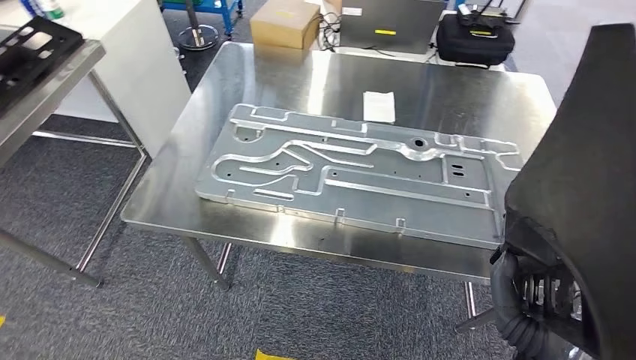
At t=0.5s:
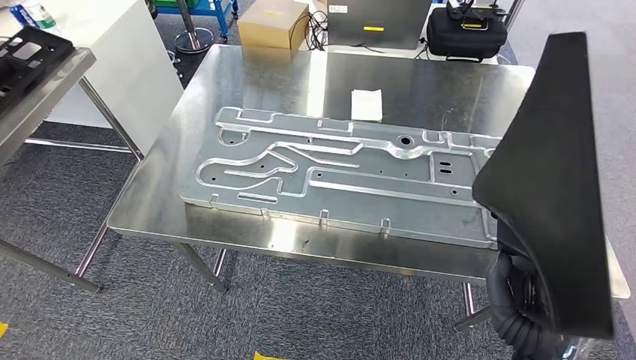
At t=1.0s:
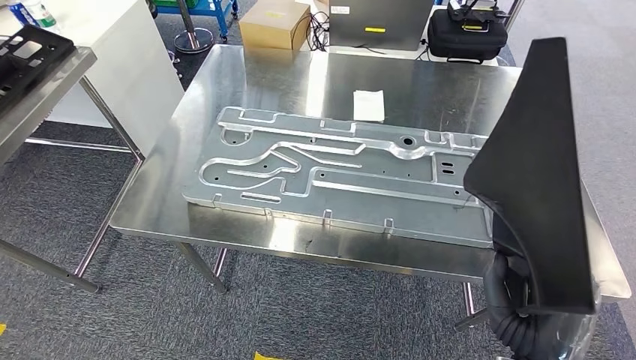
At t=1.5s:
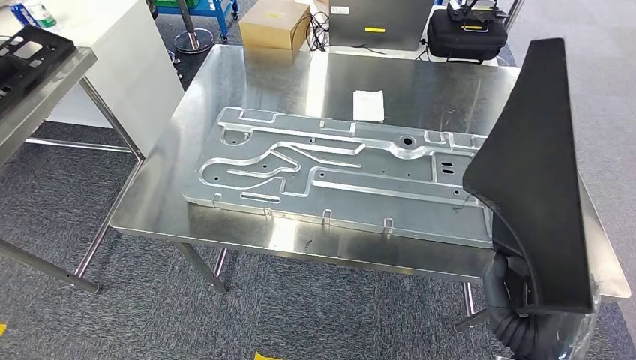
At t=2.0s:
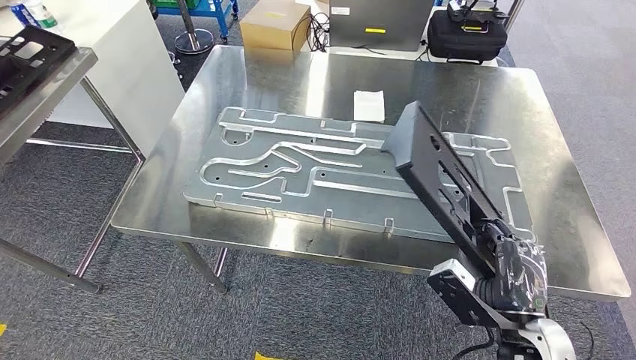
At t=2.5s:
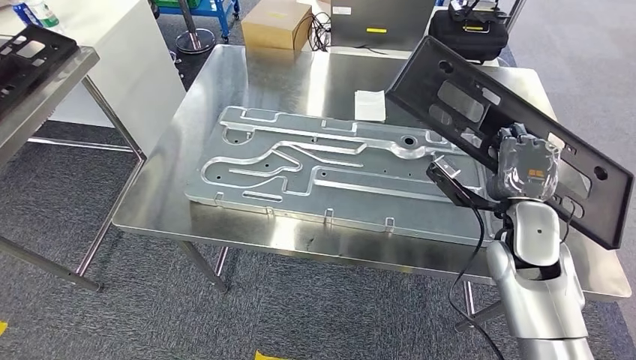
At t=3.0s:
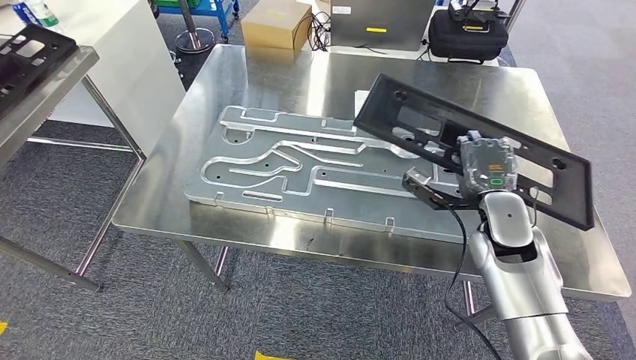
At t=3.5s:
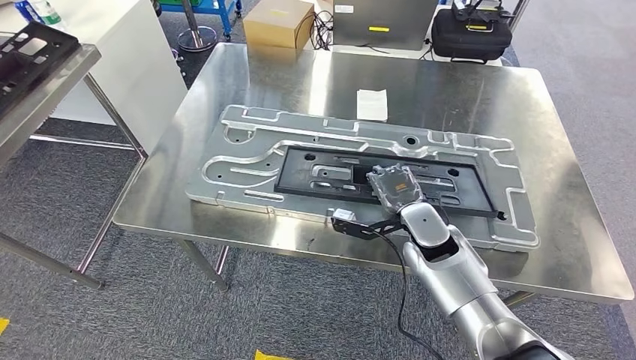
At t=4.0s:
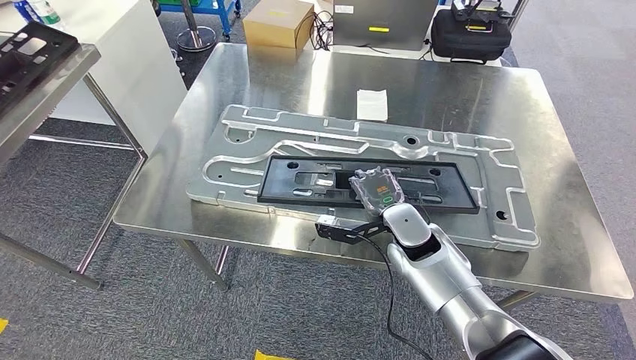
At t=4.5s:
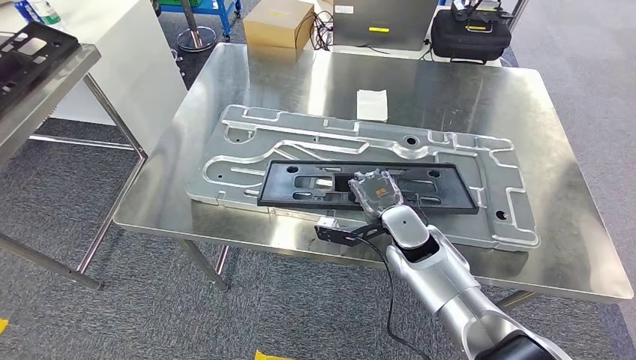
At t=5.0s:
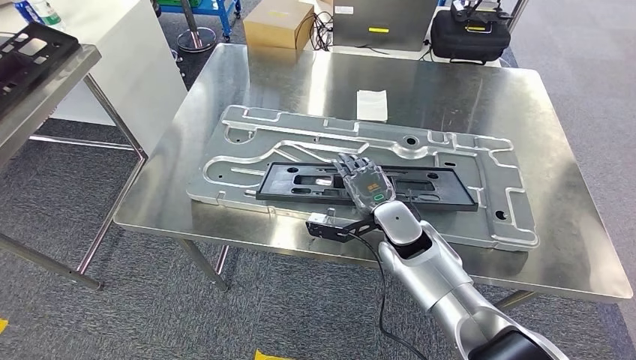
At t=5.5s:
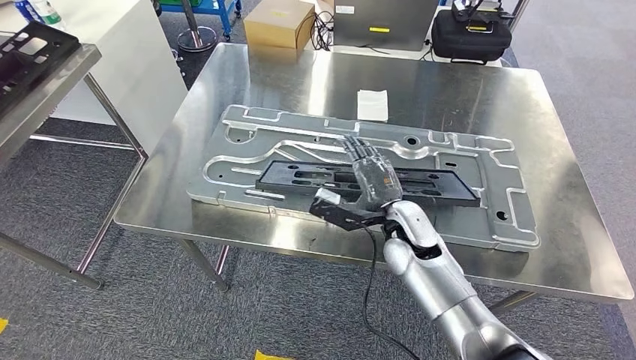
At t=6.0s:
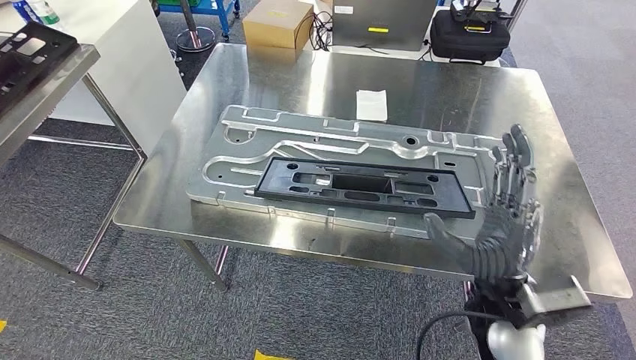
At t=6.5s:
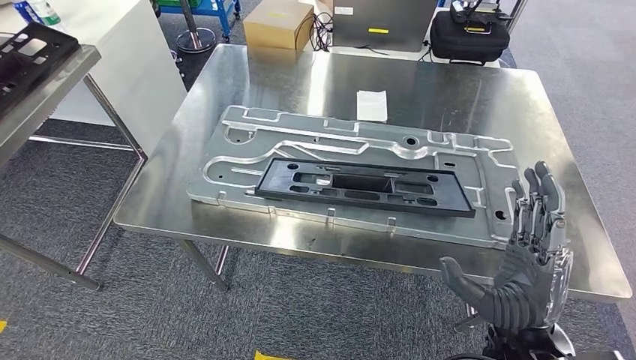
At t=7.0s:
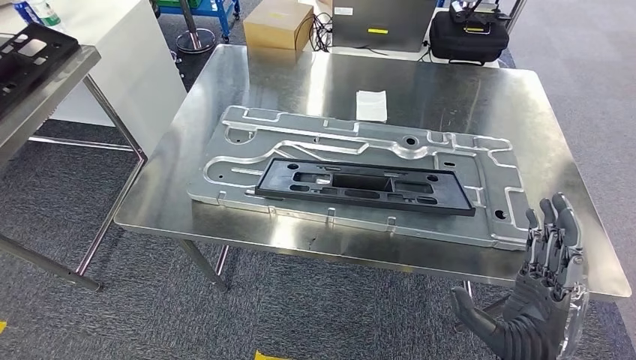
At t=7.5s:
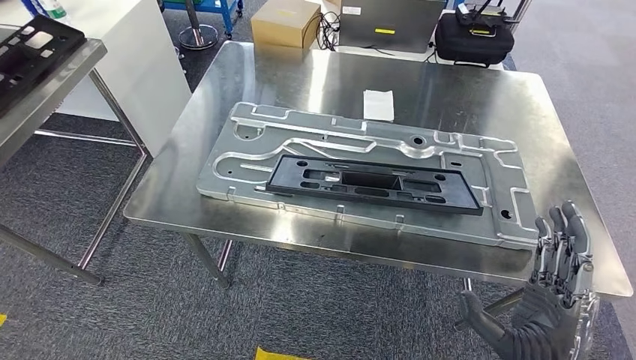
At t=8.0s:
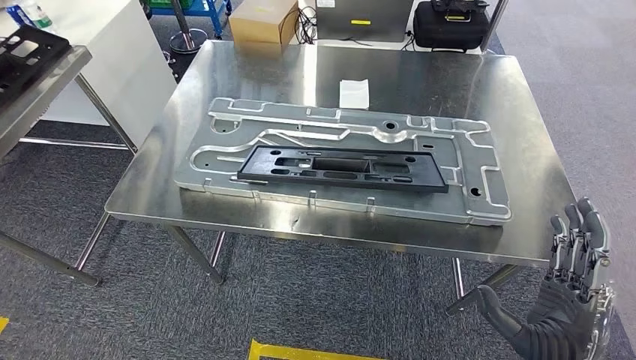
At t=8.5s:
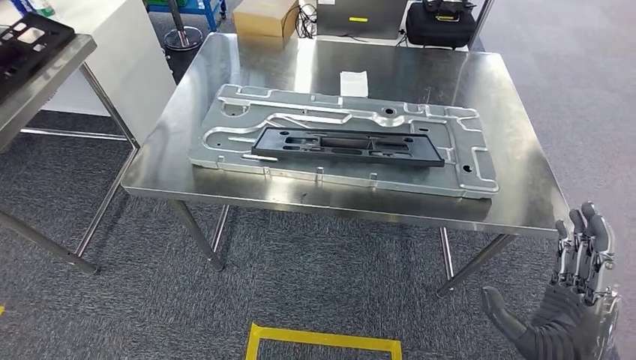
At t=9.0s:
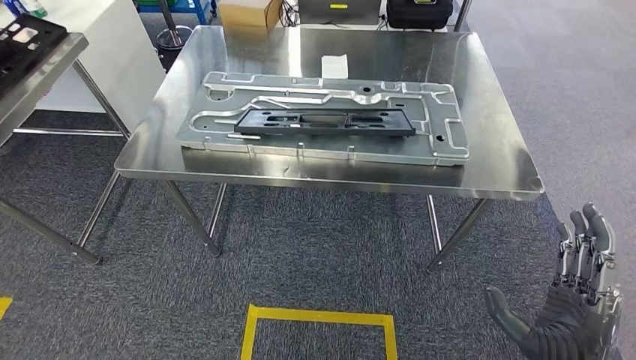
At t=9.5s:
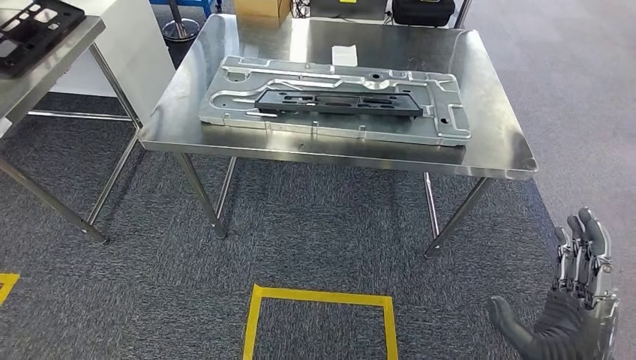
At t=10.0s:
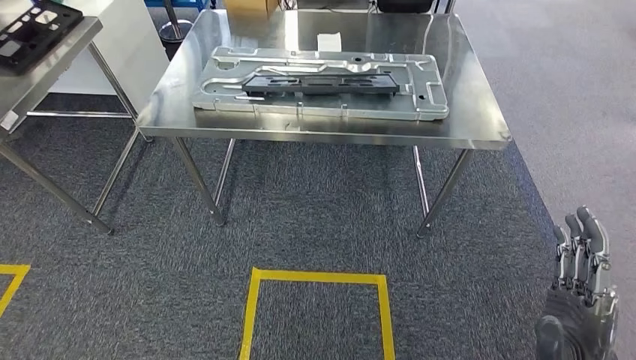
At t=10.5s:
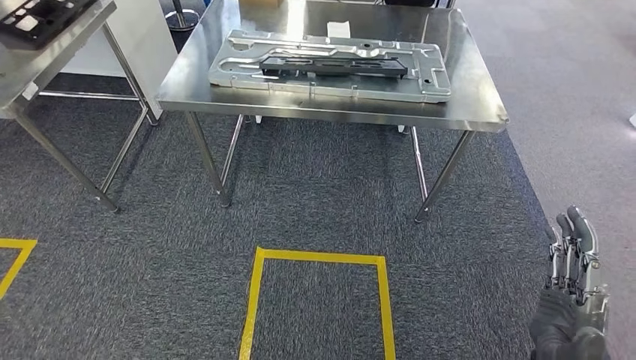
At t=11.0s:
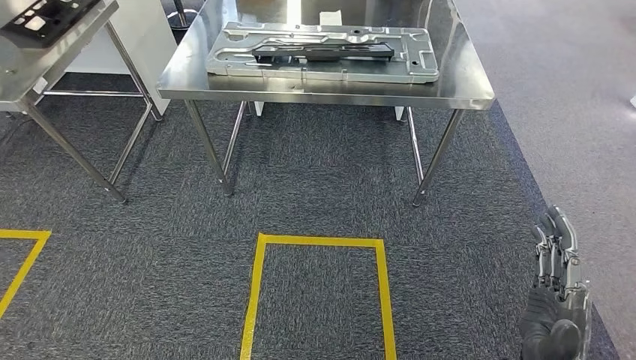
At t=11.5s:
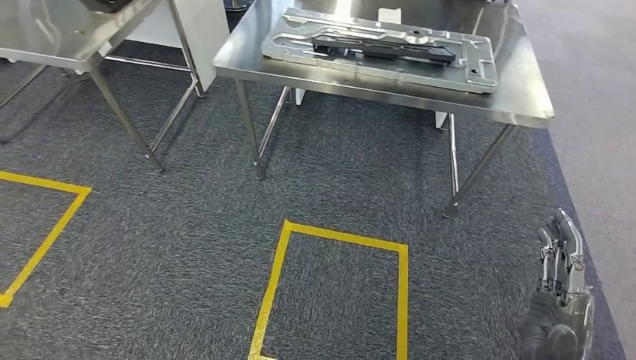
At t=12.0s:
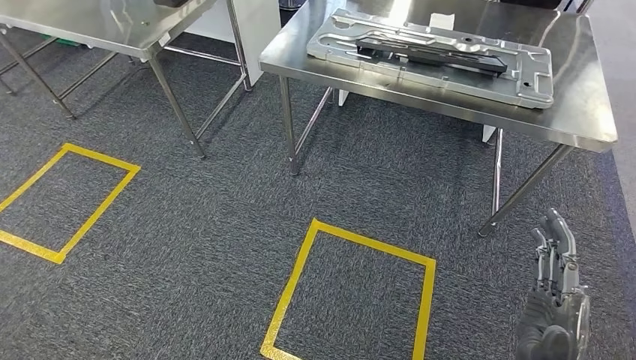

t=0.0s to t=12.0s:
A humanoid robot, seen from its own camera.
Step, t=1.5s to t=11.0s: Insert the large material into the corresponding slot on the workbench.
t=4.0s to t=6.0s: The right hand goes some 20 cm backward and upward.

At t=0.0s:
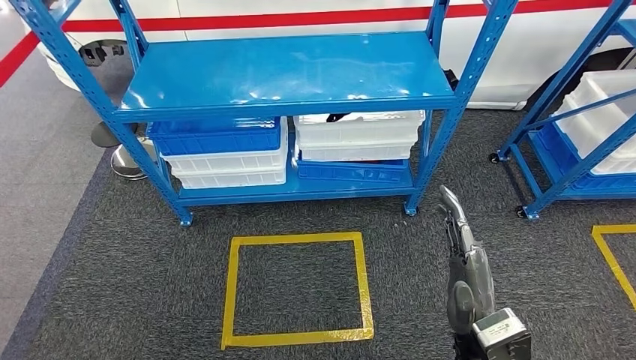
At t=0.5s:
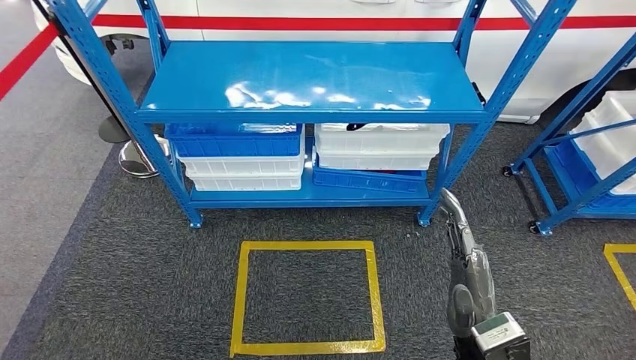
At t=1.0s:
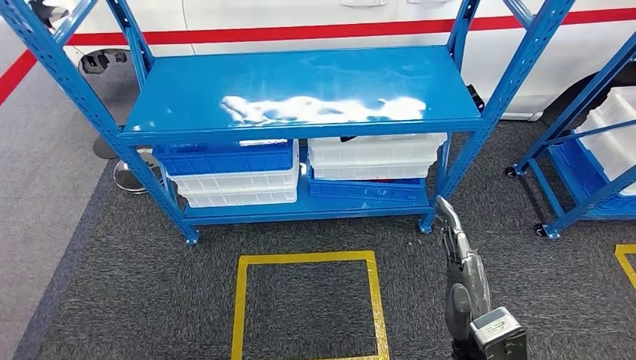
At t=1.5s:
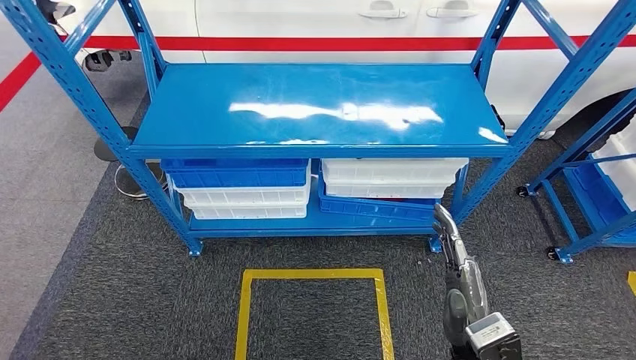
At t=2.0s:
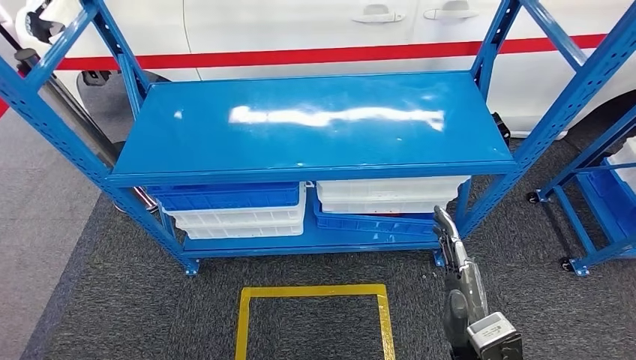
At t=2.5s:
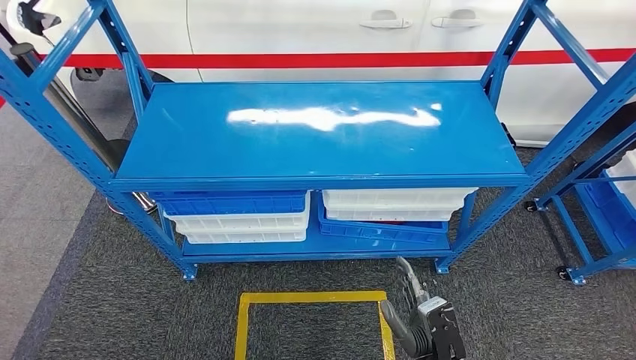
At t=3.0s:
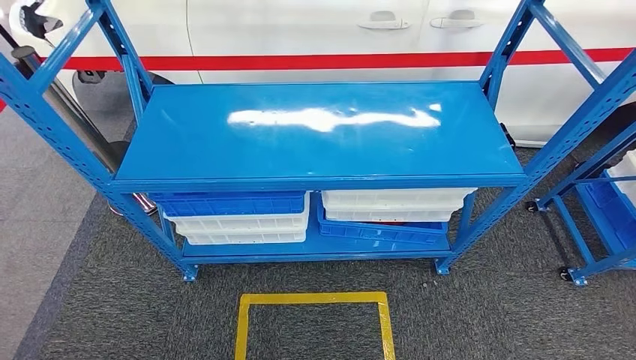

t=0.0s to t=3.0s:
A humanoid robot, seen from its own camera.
Step, t=0.0s to t=3.0s: Move to the initial position of the shelf.
